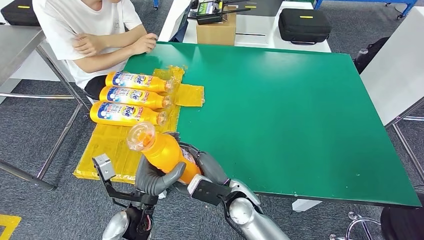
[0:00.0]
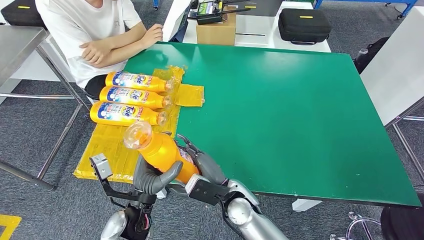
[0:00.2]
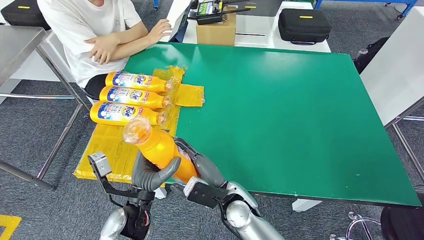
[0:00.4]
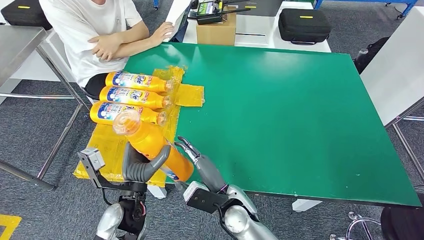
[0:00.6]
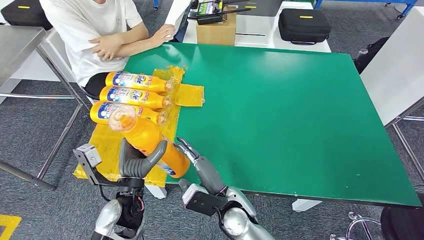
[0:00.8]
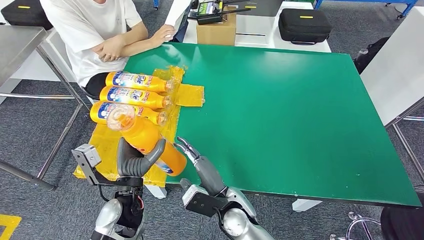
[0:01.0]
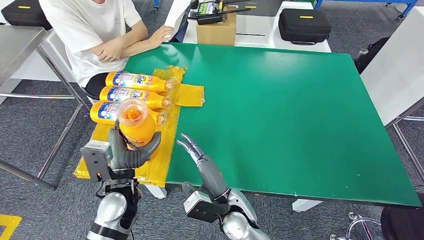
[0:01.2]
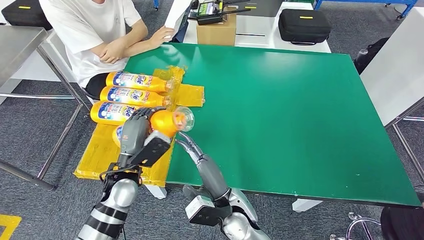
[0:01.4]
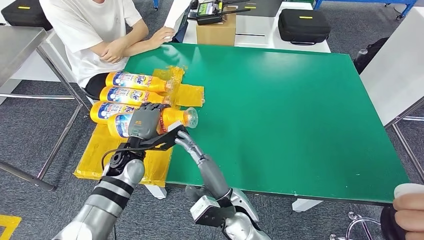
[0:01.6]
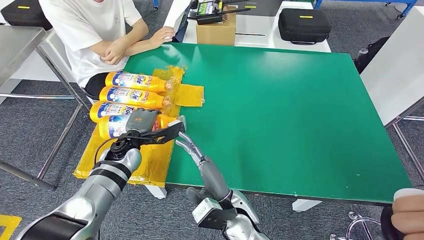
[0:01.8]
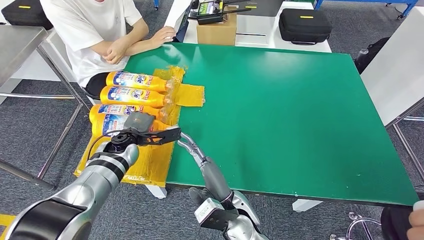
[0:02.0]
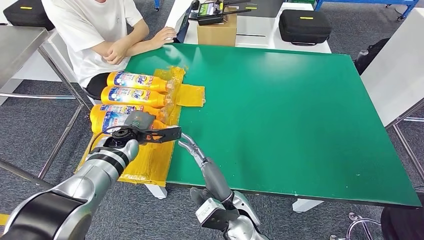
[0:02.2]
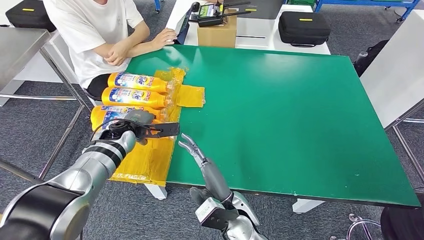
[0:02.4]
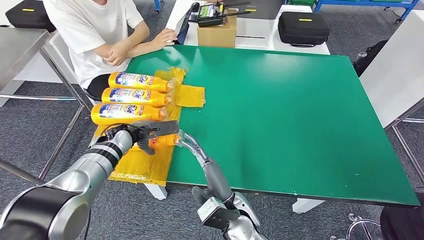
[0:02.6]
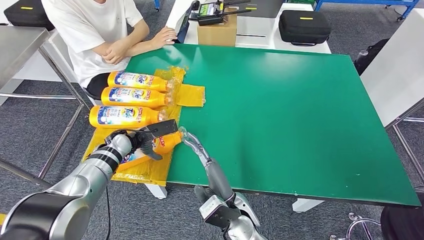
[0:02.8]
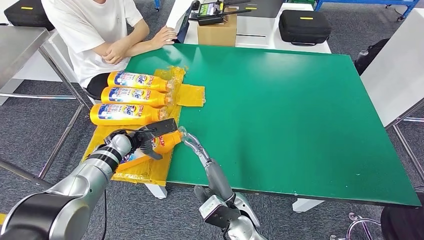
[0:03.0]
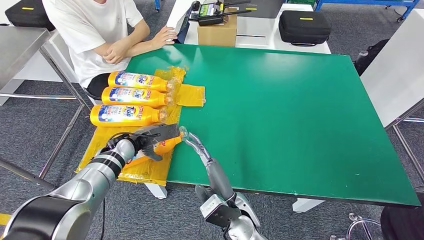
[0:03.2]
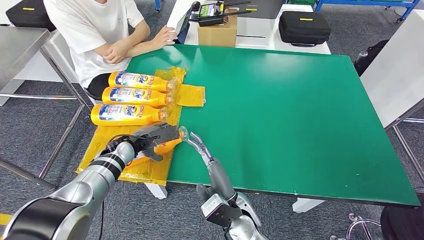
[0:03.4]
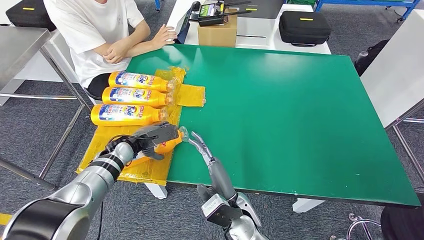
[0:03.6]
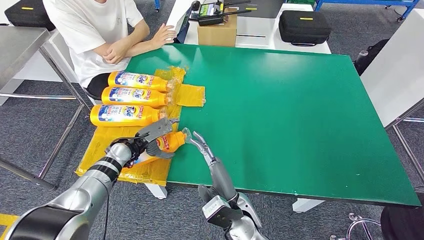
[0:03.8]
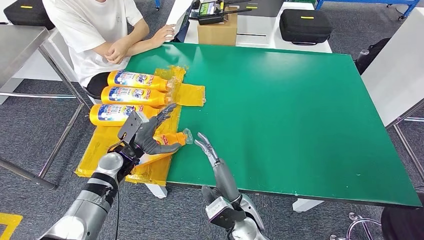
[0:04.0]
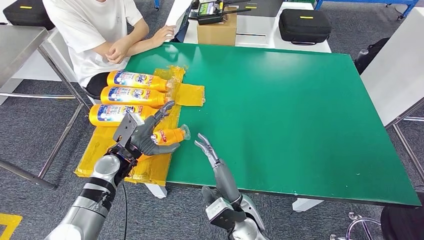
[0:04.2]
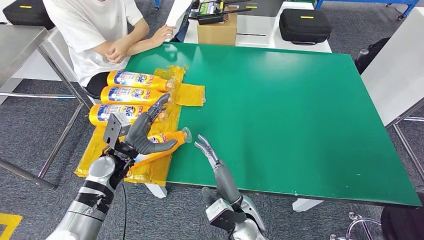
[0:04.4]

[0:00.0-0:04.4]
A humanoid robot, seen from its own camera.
Step, 0:01.2 to 0:04.4: Flip the fast-moving consumer goods bottle to the front side.
0:00.0 to 0:01.4: The left hand is displaced forward and to the left by approximately 10 cm.
0:01.4 to 0:03.0: The left hand travels forward and to the left by roughly 15 cm.
0:03.0 to 0:04.4: The left hand heads backward, covering roughly 5 cm.

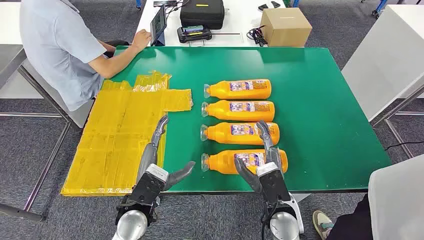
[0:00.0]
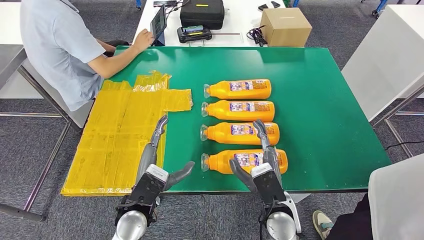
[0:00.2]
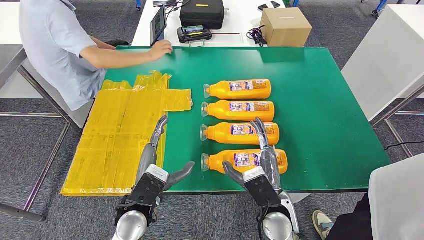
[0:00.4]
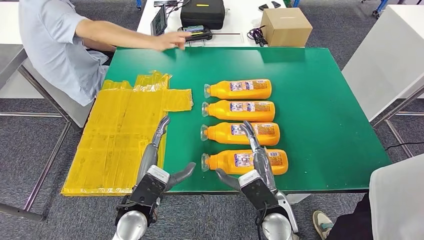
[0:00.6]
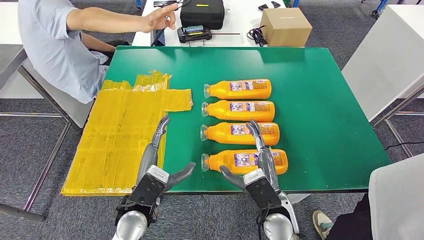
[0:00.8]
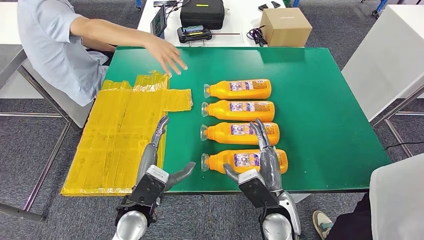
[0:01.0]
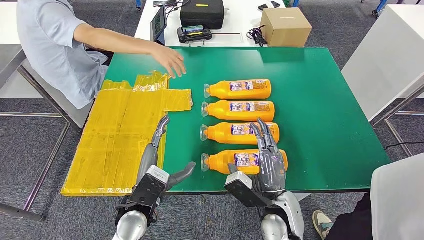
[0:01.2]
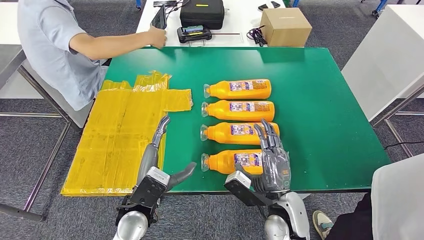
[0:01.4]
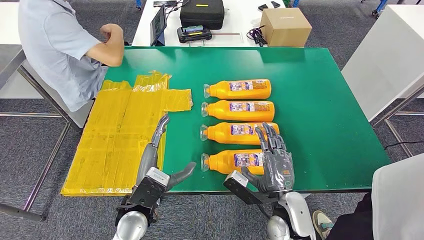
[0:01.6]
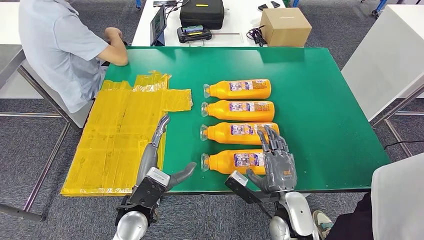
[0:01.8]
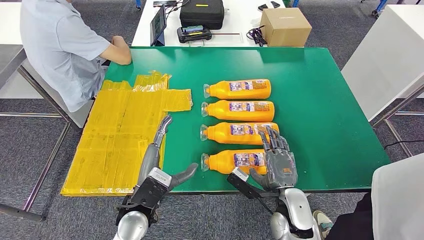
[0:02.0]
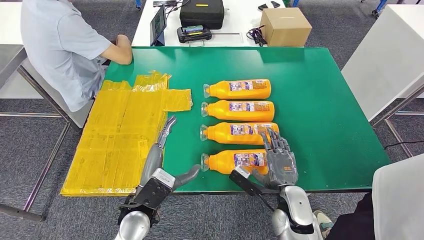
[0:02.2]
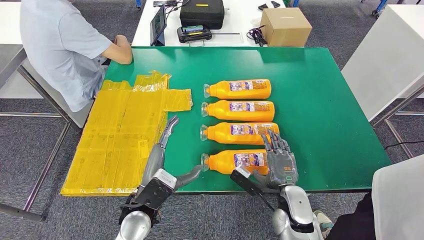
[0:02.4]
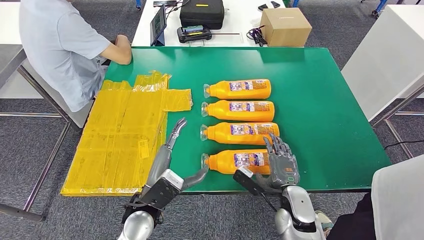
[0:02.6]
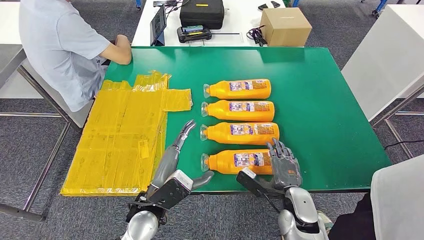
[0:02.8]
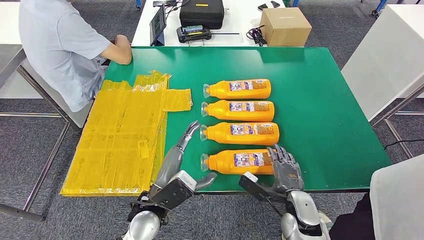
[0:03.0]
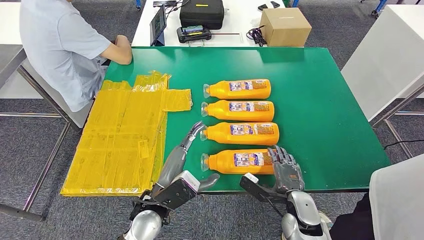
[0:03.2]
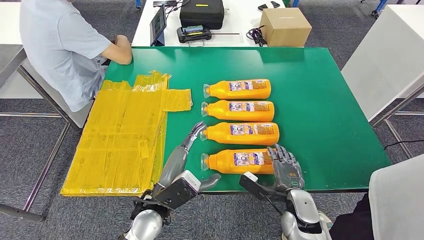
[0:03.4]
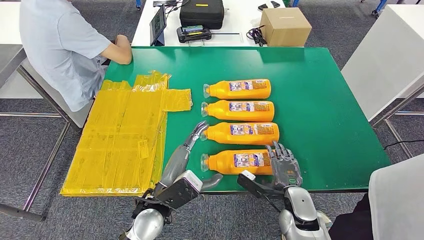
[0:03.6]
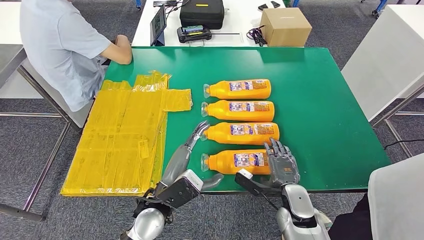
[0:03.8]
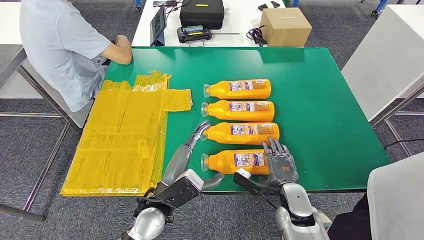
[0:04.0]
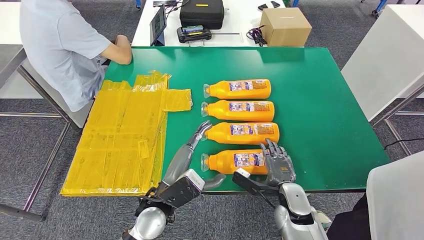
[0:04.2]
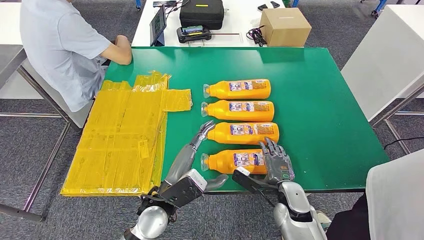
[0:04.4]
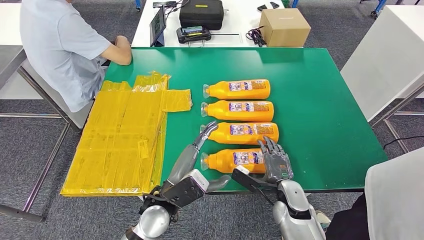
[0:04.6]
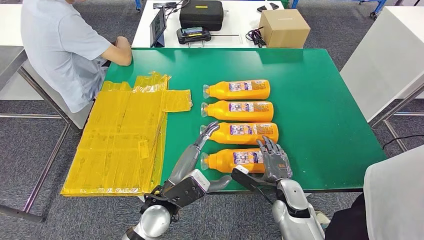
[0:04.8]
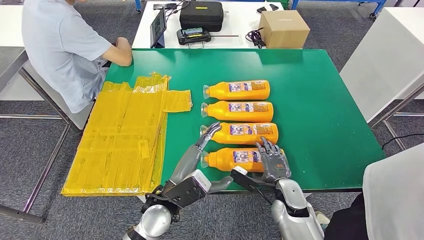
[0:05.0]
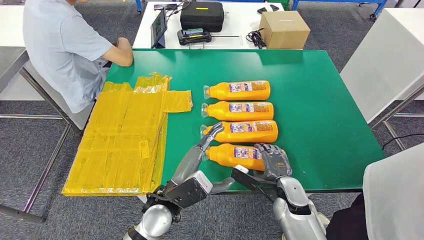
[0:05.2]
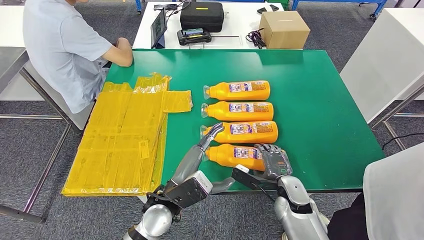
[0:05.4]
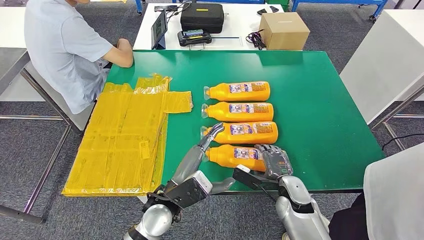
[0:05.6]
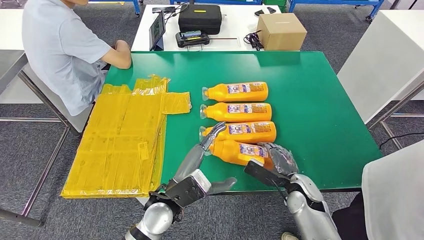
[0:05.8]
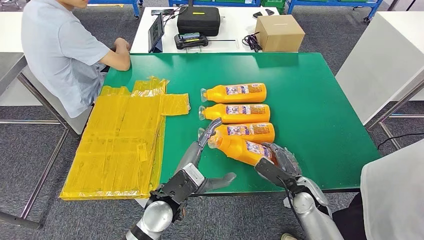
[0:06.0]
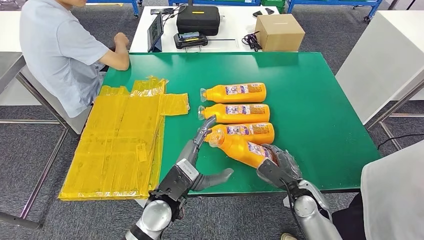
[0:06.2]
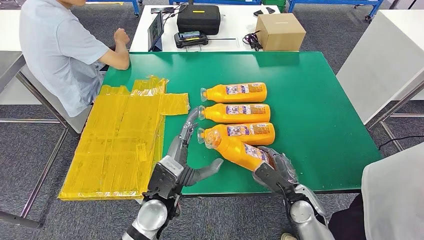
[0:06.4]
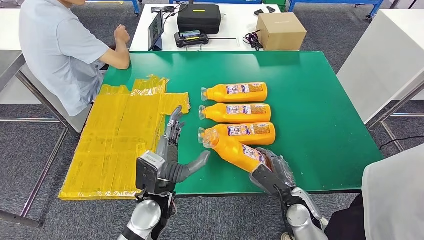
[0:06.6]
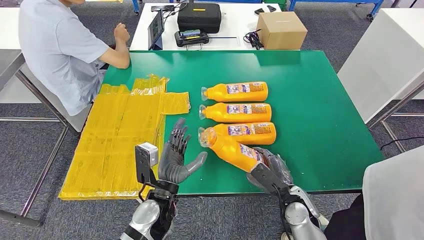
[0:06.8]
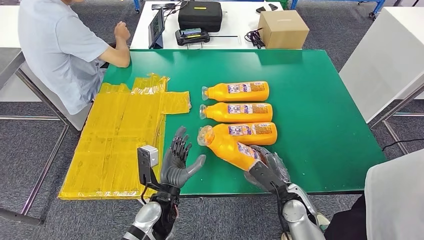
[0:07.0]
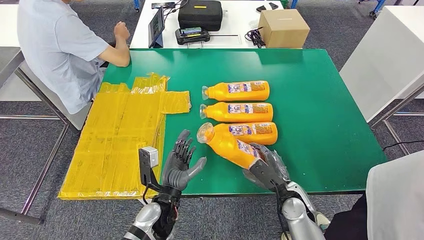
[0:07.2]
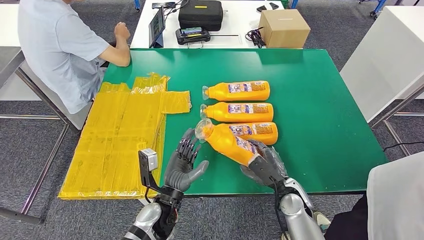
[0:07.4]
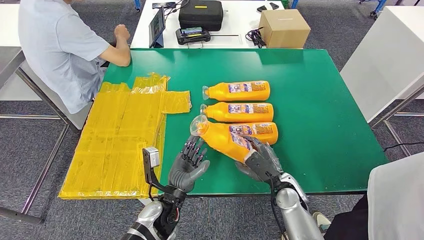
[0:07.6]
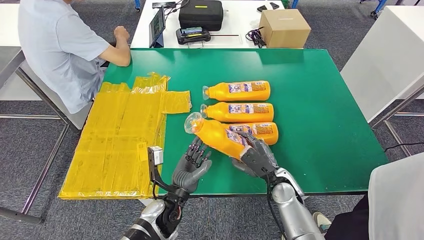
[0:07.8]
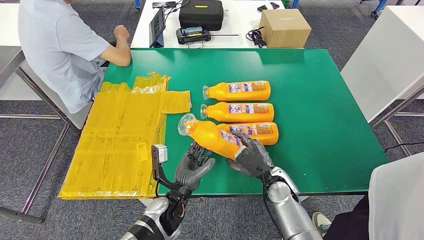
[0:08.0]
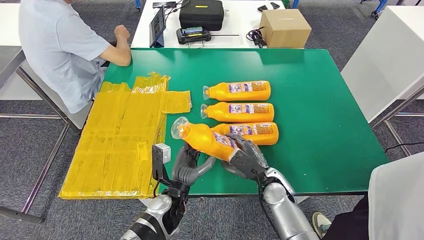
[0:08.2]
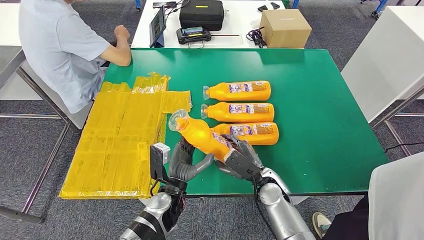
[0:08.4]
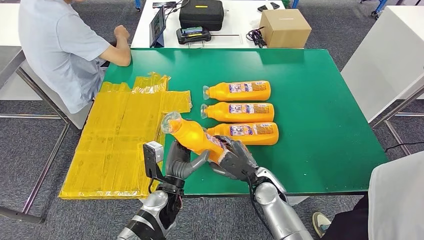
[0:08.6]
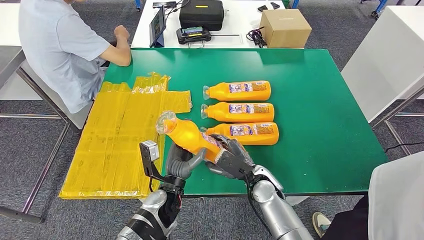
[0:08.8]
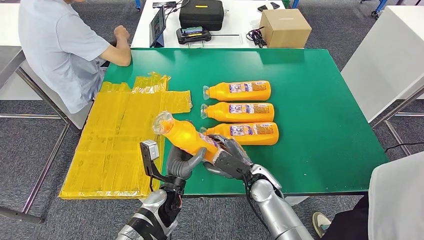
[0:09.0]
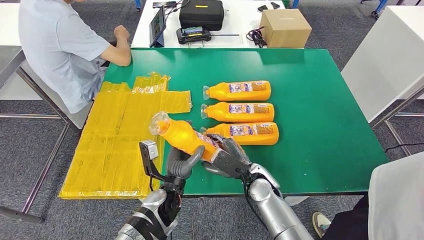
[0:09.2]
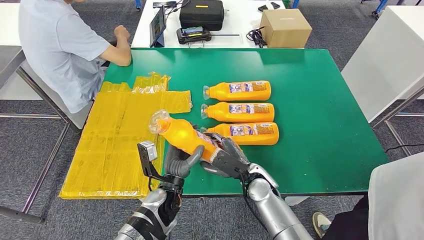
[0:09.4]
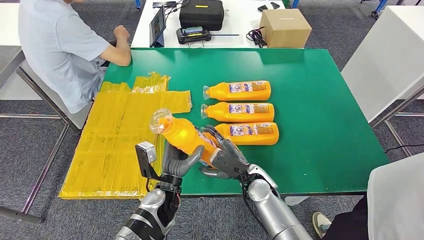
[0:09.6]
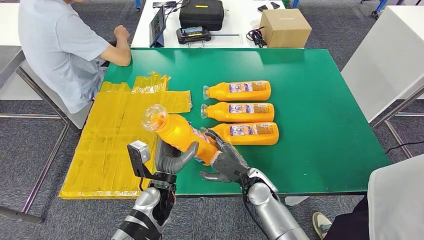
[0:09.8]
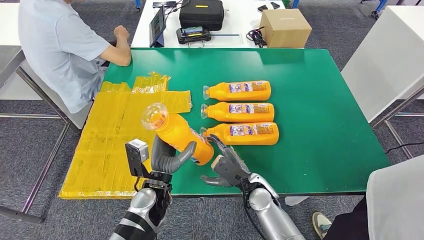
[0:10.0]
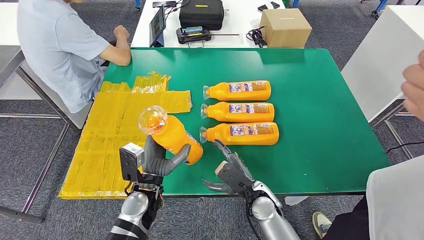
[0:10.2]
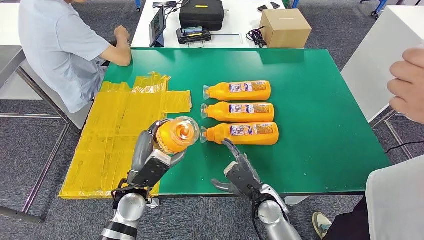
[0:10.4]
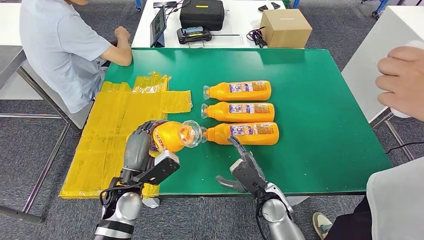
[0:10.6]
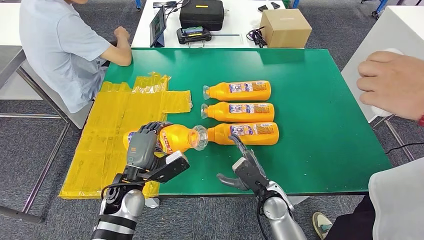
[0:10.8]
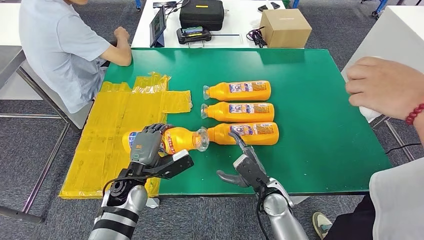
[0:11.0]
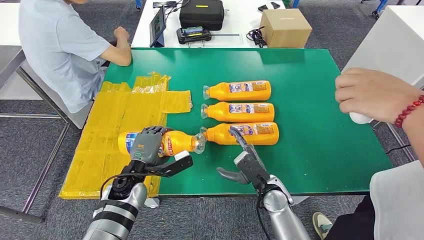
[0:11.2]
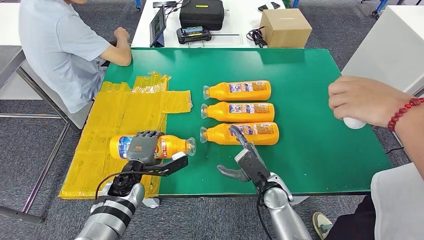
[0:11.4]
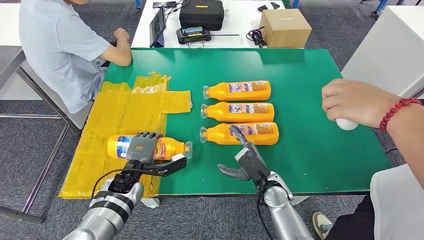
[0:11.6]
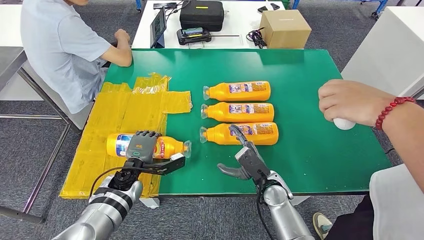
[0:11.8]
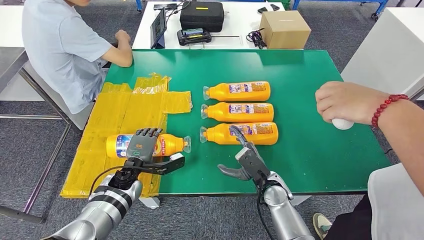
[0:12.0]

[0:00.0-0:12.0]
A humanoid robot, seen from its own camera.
Step, 0:00.0 to 0:07.8: Take the fast-moving consumer goods bottle from the table.
Step, 0:08.0 to 0:11.6: Flip the fast-moving consumer goods bottle to the front side.
0:01.6 to 0:03.0: The right hand goes some 10 cm downward and to the right.
0:03.0 to 0:04.4: The hands stay close to where they were, moving slightly.
0:07.6 to 0:09.0: The right hand is displaced to the left by some 10 cm.
0:09.0 to 0:10.4: The right hand ends up some 5 cm from where it was; the left hand heads to the left and upward, covering roughly 10 cm.
